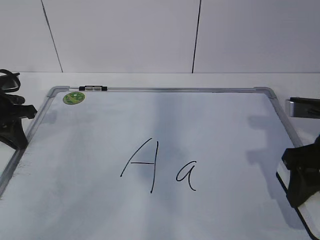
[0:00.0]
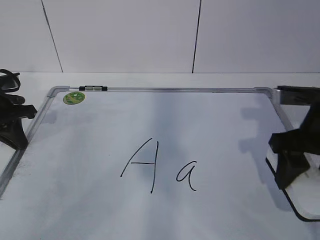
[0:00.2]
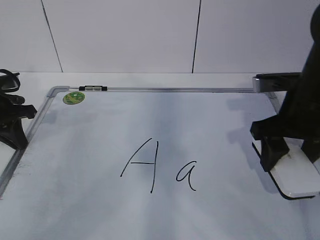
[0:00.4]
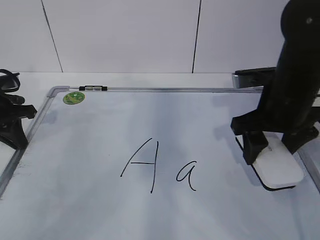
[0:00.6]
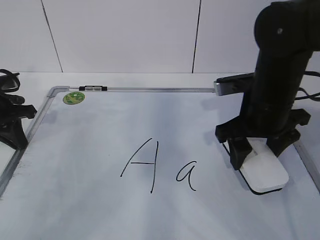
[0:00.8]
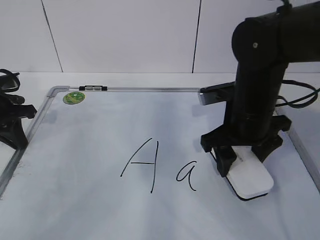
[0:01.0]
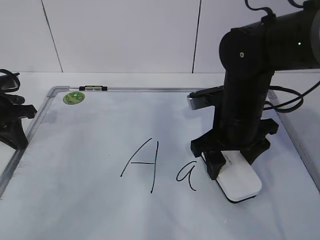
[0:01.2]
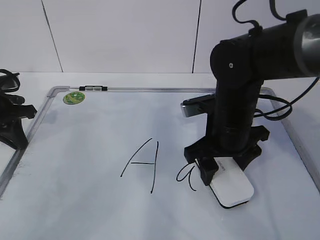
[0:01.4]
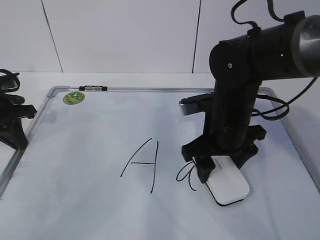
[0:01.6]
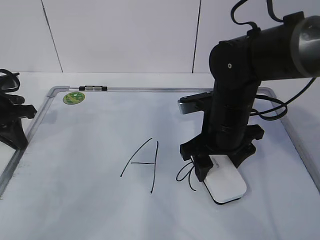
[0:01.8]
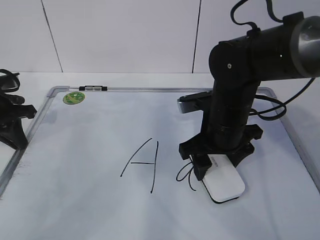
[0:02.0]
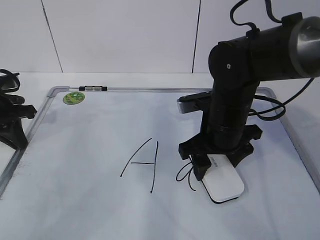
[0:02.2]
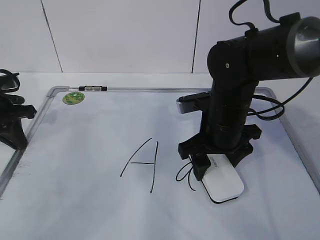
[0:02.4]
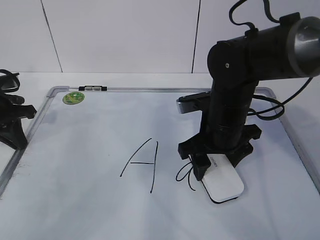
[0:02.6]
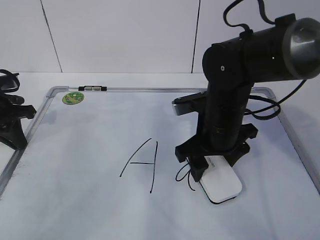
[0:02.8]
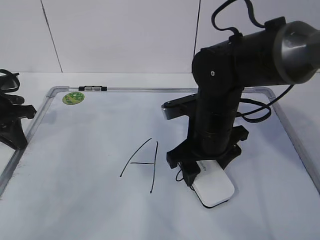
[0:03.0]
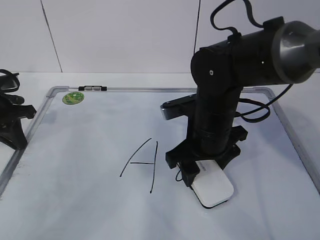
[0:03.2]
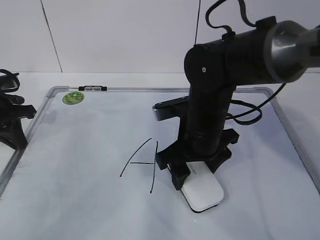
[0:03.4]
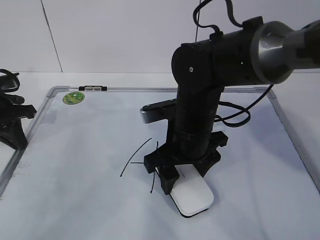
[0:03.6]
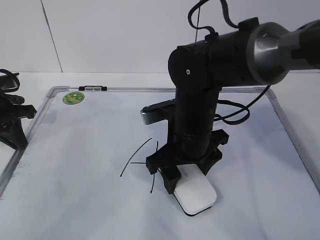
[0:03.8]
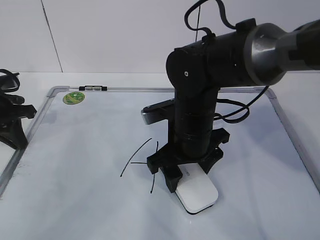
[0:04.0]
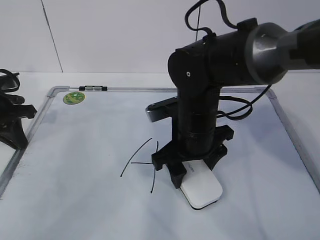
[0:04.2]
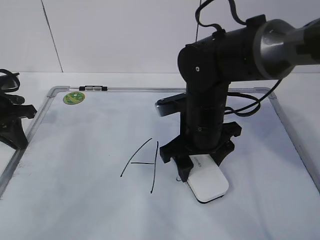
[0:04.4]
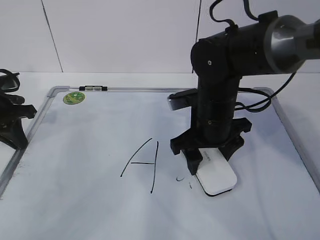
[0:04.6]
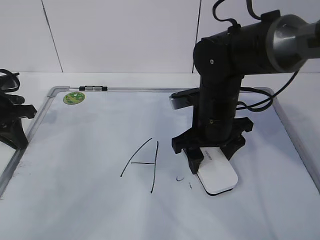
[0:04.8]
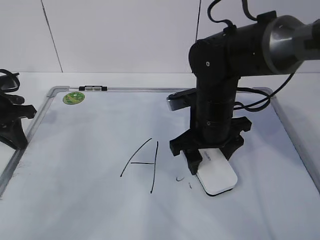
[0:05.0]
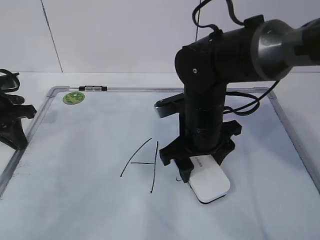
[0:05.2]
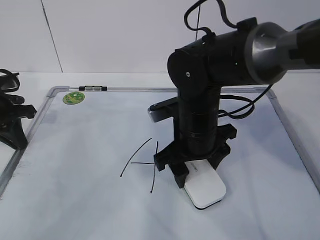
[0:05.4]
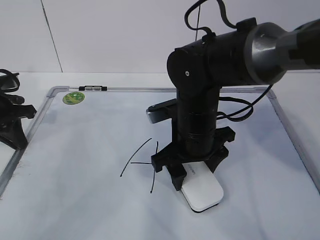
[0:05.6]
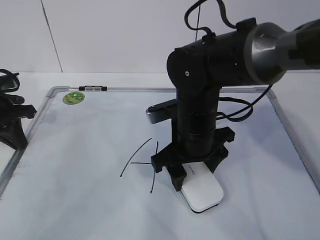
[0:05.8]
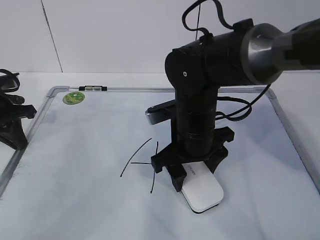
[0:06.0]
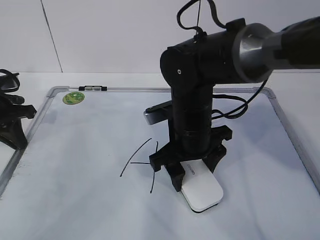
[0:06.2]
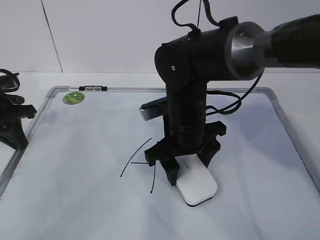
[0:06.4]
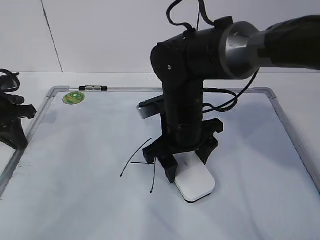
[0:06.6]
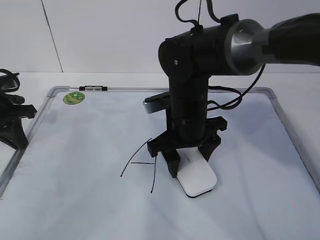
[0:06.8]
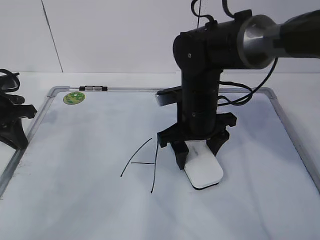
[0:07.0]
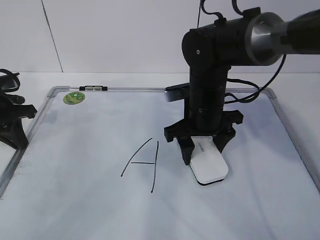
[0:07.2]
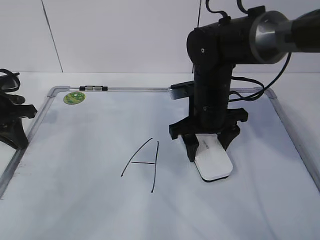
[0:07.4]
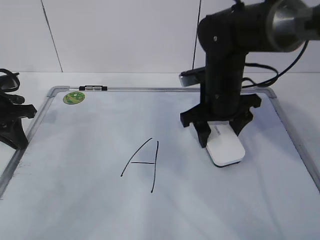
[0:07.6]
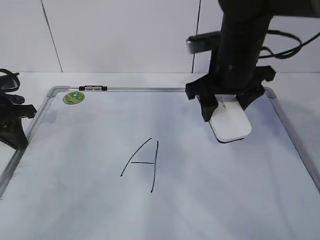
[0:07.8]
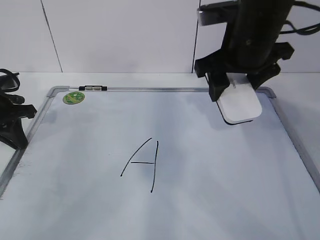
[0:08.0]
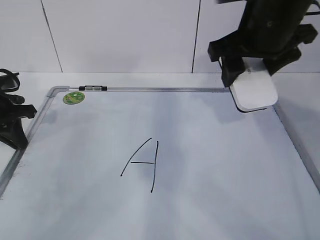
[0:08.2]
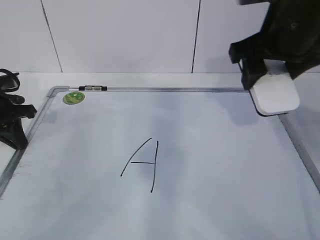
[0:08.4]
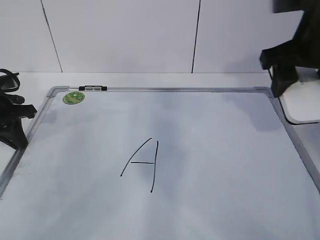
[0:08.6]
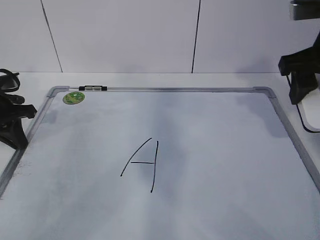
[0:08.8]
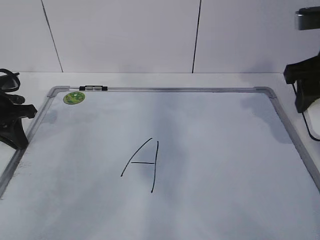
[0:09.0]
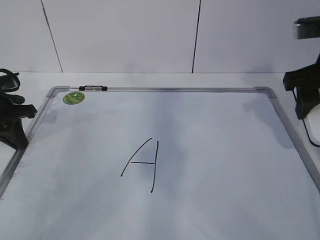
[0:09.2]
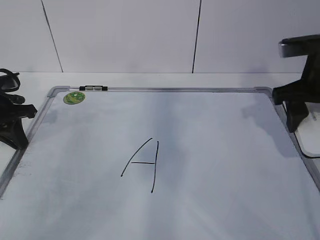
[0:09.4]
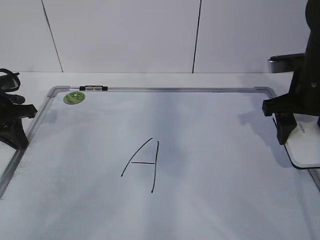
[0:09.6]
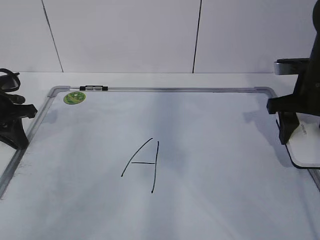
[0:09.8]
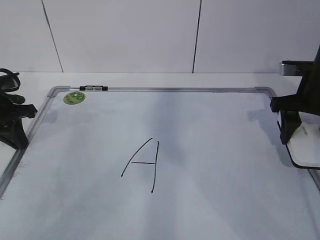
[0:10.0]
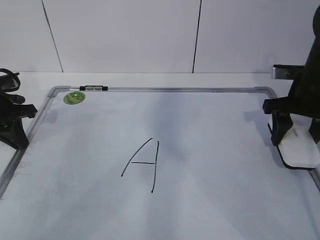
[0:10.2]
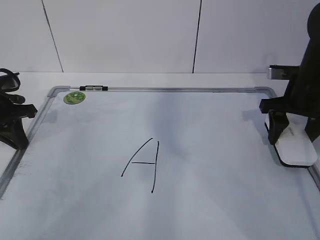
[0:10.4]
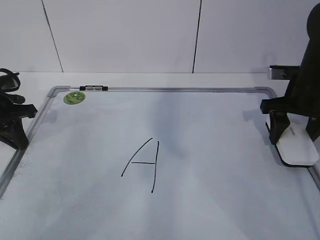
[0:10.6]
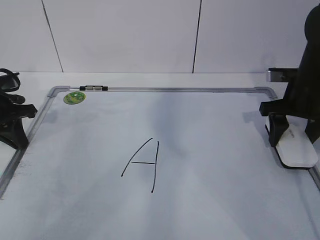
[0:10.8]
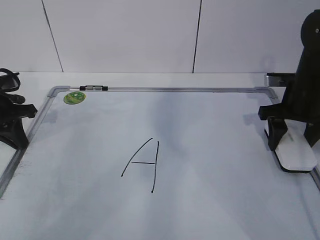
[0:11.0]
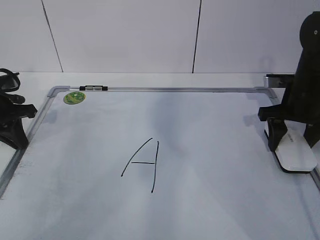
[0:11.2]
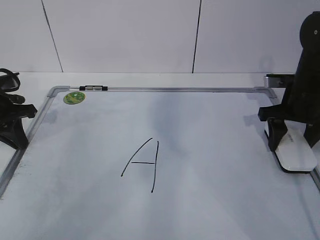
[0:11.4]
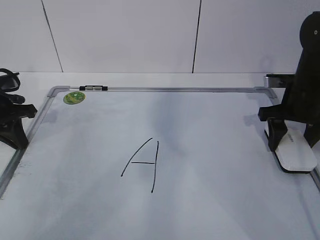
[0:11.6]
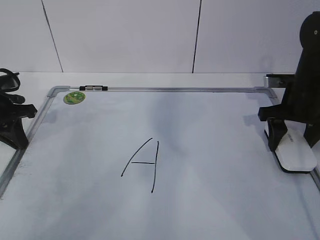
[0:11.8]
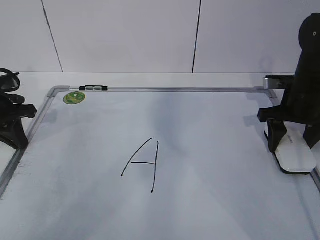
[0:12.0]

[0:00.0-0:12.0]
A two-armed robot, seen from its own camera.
Task of the whole recording: pick up the eraser on the blackboard and erase the letter "a".
Step, 0:00.0 to 0:03.6: Erase the letter a with your right hand.
Step, 0:03.8 to 0:07.6: Put down the eraser with your right hand.
0:00.0 to 0:01.6: The right gripper goes about 15 cm to the left, forward and downward.
0:01.6 to 0:06.0: The grippers move only a little.
0:06.0 to 0:07.6: The right gripper travels forward and to the right by approximately 10 cm.
0:07.6 to 0:09.0: The right gripper travels to the right, upward and backward by roughly 20 cm.
0:09.0 to 0:10.4: The right gripper moves downward and forward, roughly 15 cm.
0:10.4 to 0:12.0: The grippers make only small movements.

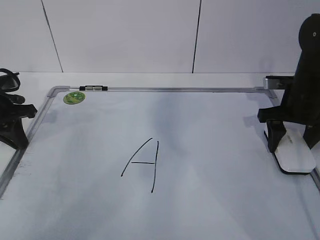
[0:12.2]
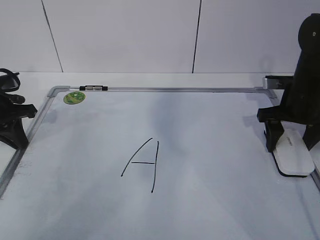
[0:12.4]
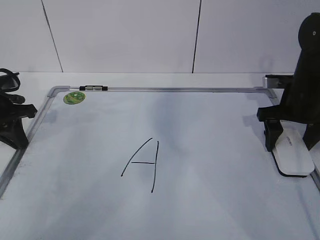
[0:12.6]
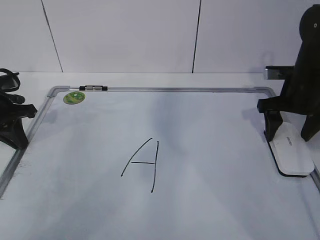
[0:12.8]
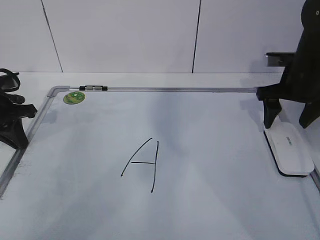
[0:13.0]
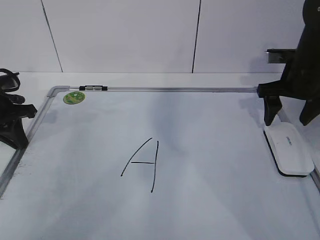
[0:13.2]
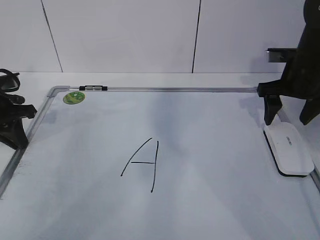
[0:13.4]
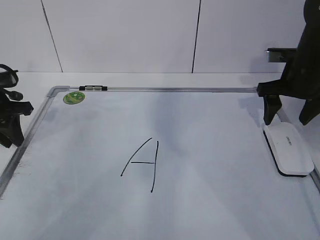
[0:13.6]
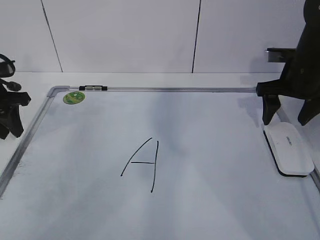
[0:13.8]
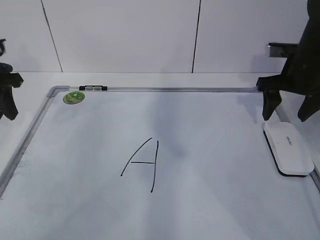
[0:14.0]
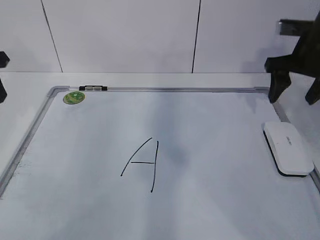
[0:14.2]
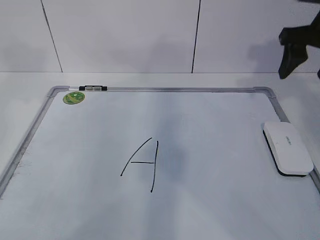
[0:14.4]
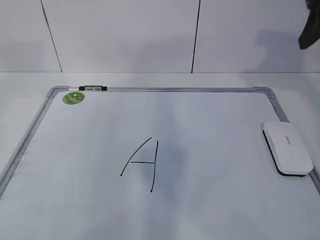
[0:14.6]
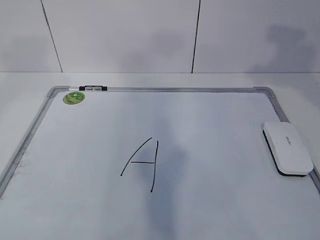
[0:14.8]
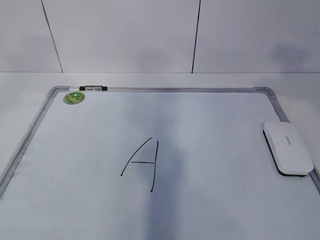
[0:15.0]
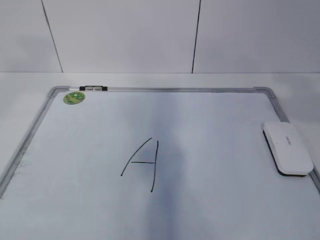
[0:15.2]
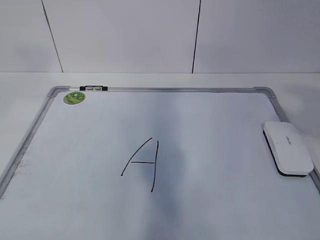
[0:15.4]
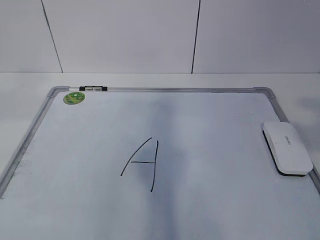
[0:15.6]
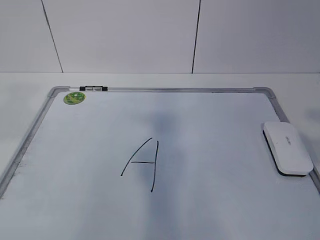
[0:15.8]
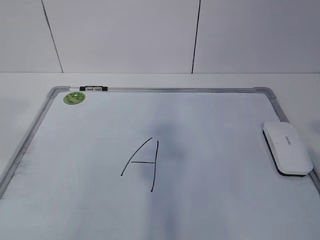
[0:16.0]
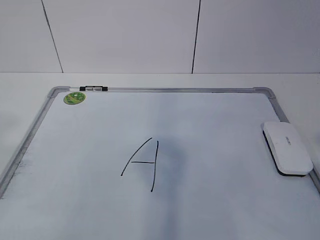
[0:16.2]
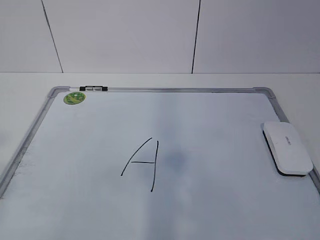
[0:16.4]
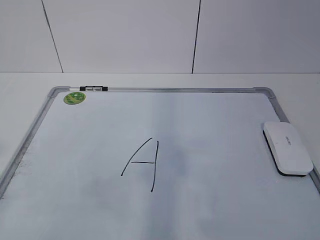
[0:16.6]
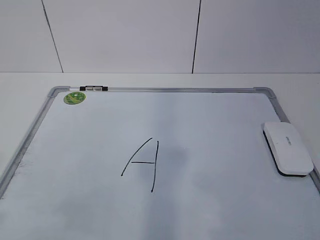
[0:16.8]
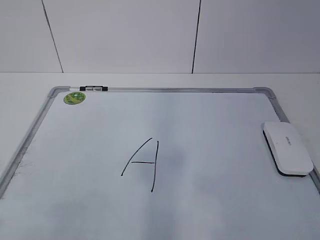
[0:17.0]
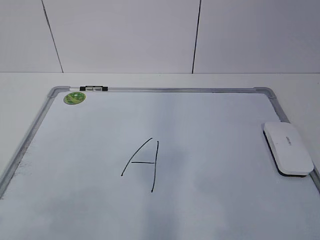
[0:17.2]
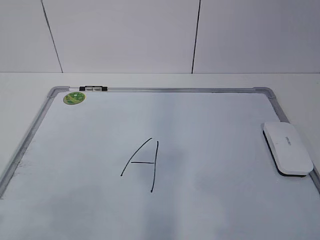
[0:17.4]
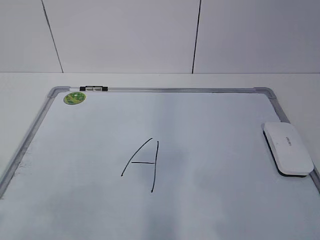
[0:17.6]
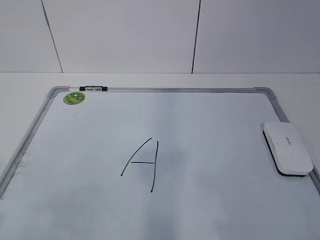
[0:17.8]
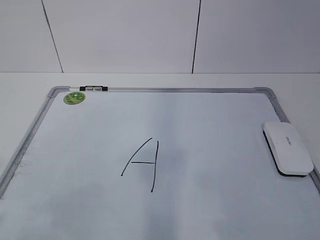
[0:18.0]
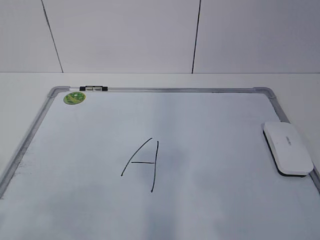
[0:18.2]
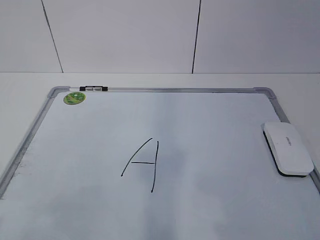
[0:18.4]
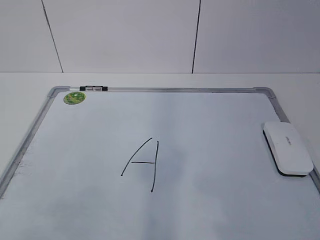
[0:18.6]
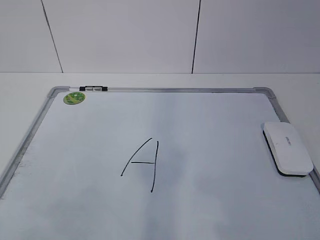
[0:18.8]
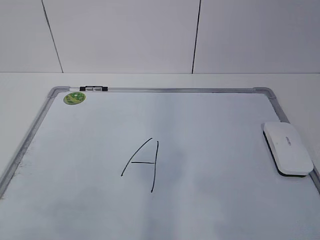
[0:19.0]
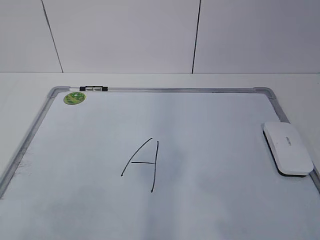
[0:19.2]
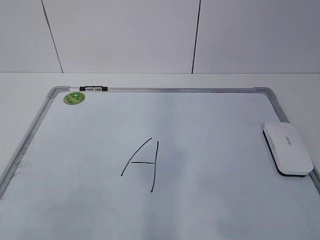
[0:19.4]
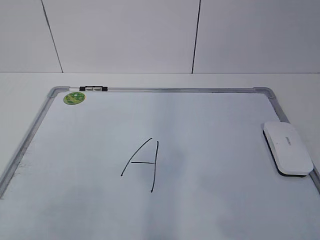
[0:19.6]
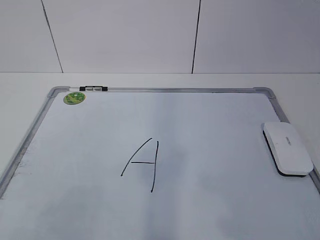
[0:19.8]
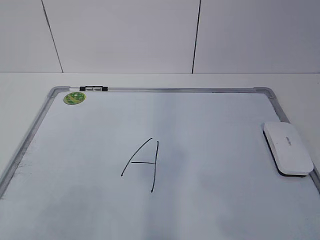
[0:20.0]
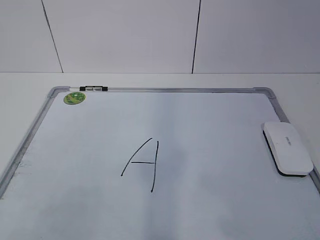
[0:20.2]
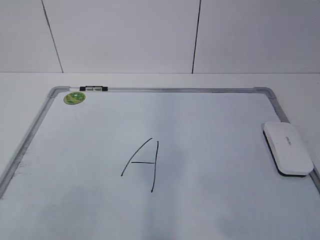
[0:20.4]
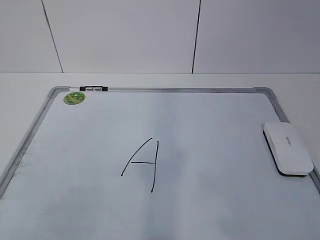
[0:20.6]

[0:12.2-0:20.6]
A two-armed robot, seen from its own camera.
Task of the whole recording: pick up the eraser on the blackboard and erase the letter "a".
0:12.2 to 0:13.6: The left gripper opens its fingers. The right gripper opens its fingers.
0:13.6 to 0:15.0: Both grippers travel together upward and backward, roughly 30 cm. The left gripper opens its fingers. Meanwhile the right gripper closes.
0:15.0 to 0:16.4: The right gripper travels backward and downward by some 25 cm, while the left gripper is displaced backward by approximately 25 cm.

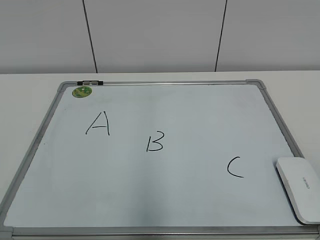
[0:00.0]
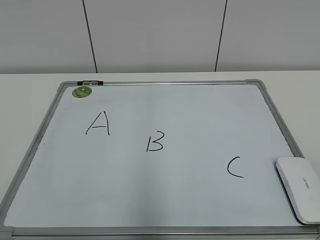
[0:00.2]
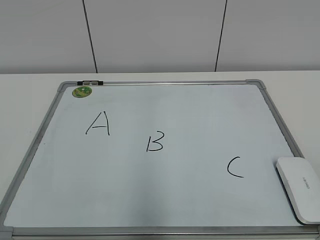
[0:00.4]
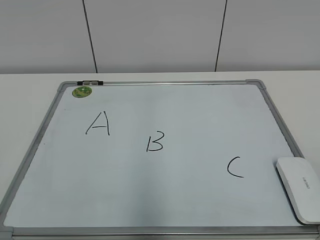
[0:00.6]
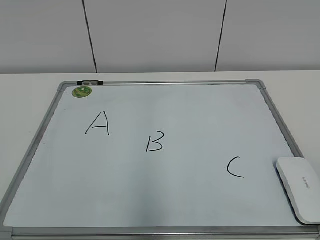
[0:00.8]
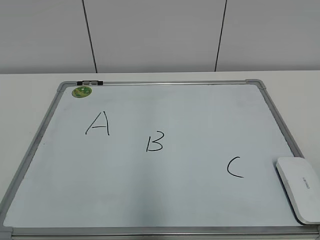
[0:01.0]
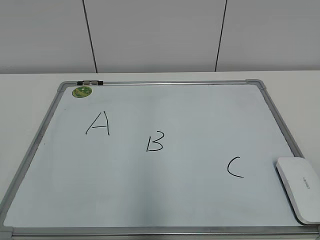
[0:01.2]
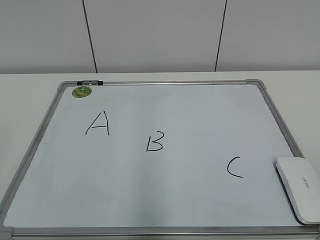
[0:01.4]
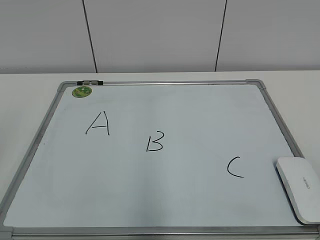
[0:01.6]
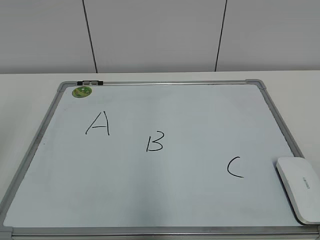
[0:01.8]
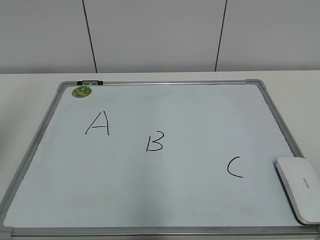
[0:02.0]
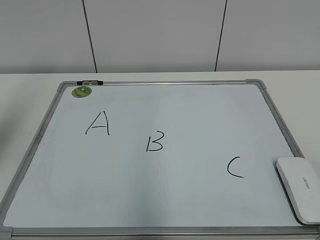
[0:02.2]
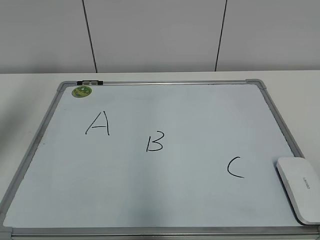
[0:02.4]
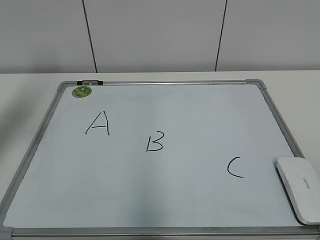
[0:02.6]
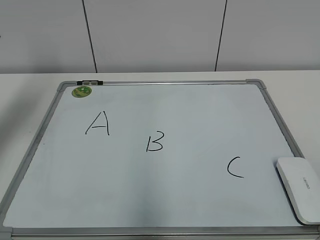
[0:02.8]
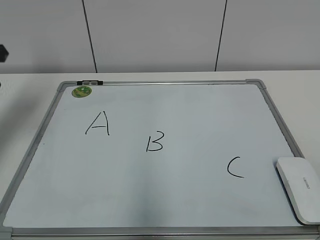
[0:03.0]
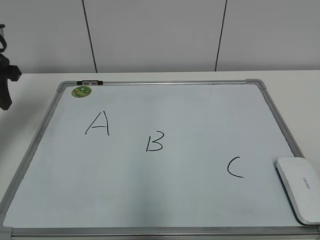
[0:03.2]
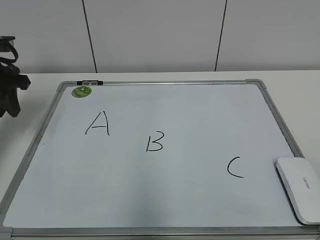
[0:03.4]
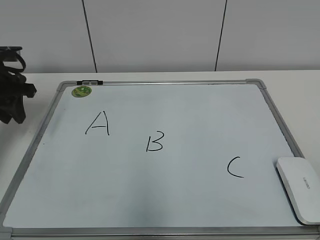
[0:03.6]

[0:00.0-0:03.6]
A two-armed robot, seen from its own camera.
Task of the whole recording: pick up the eraser on the blackboard and erase the letter "B".
0:01.8 to 0:03.6: The left gripper moves forward and downward, about 30 cm.
